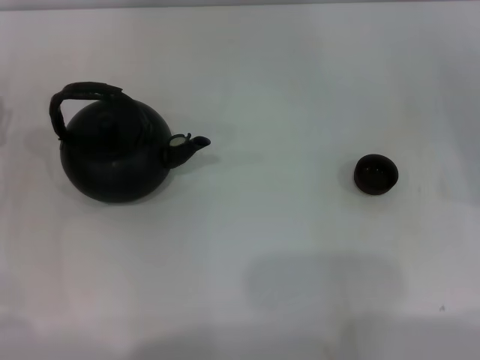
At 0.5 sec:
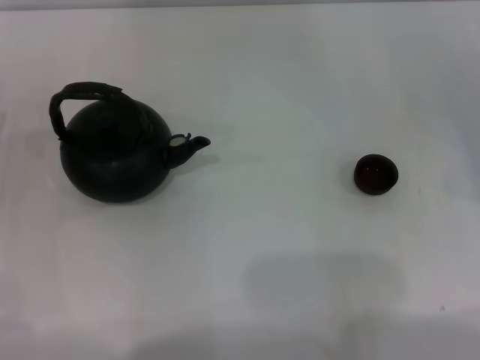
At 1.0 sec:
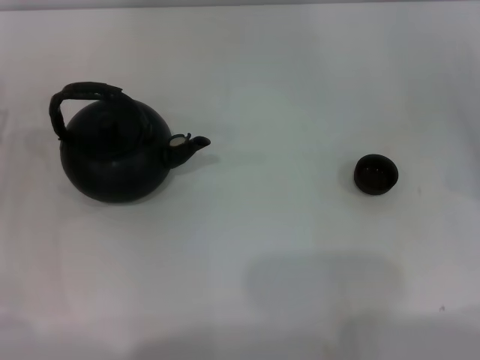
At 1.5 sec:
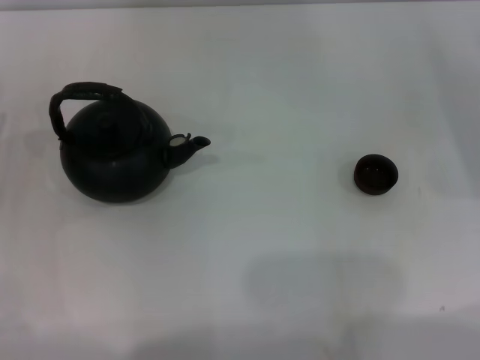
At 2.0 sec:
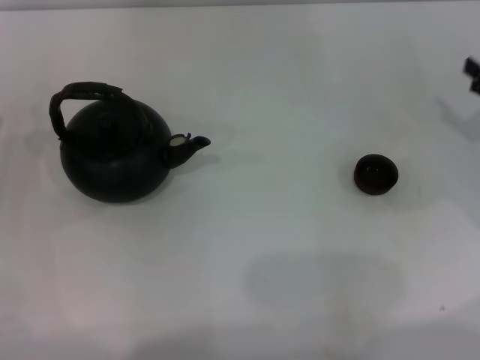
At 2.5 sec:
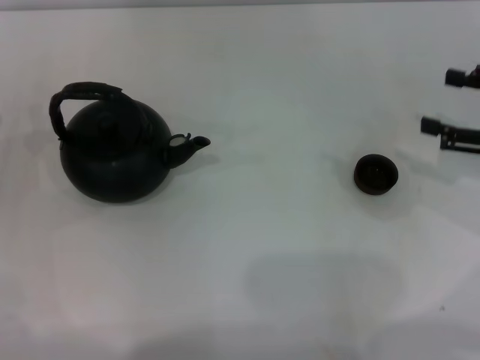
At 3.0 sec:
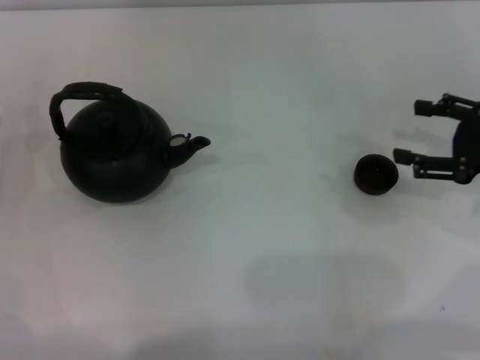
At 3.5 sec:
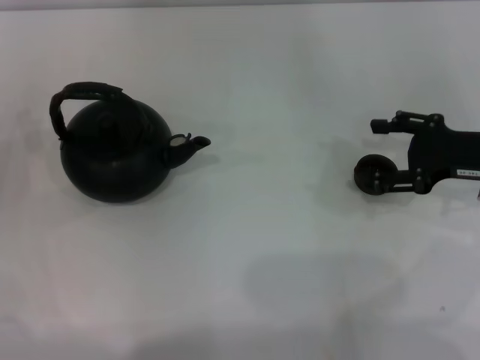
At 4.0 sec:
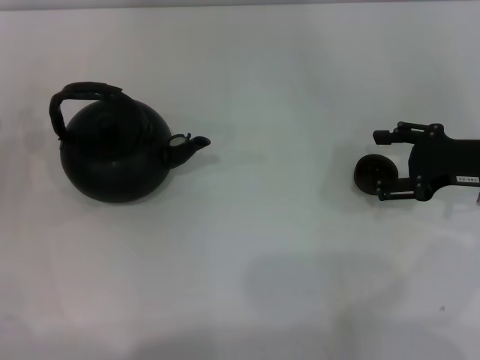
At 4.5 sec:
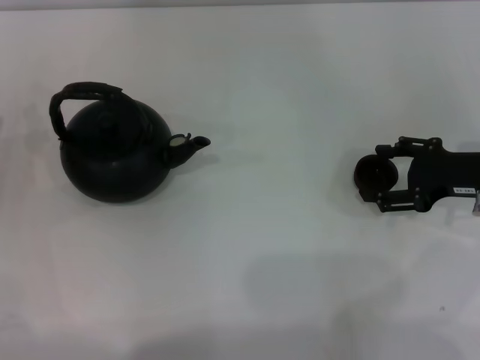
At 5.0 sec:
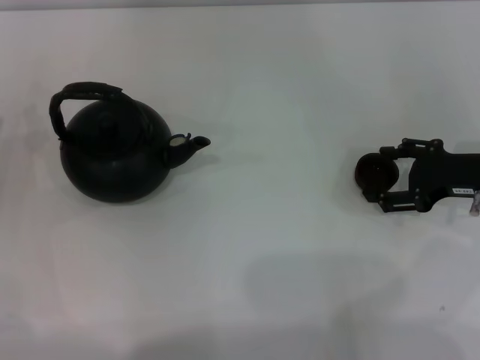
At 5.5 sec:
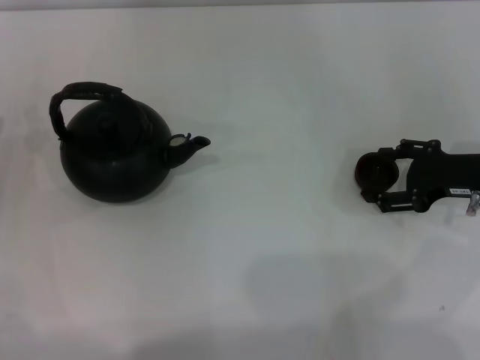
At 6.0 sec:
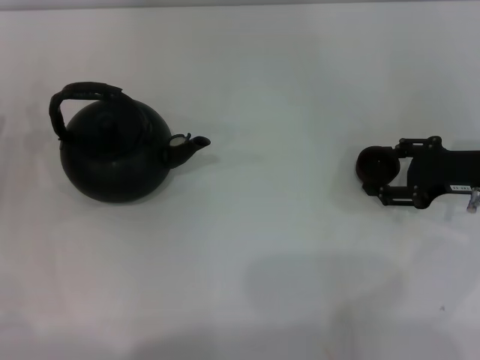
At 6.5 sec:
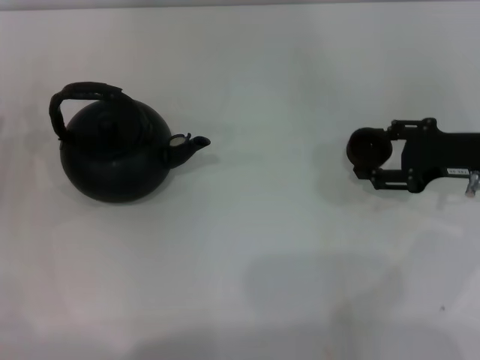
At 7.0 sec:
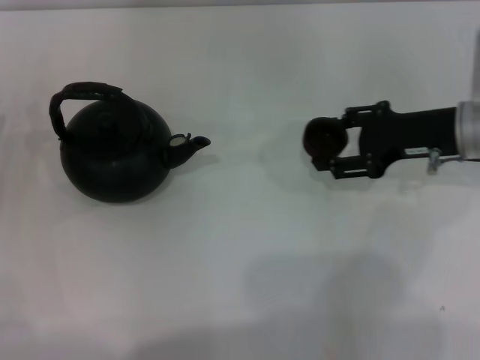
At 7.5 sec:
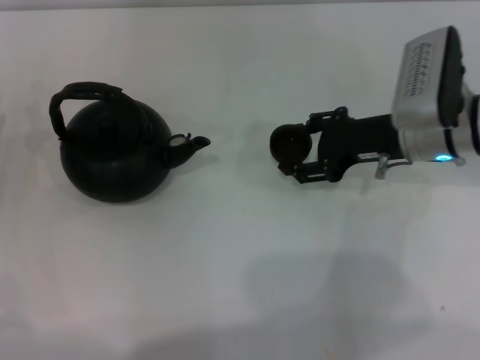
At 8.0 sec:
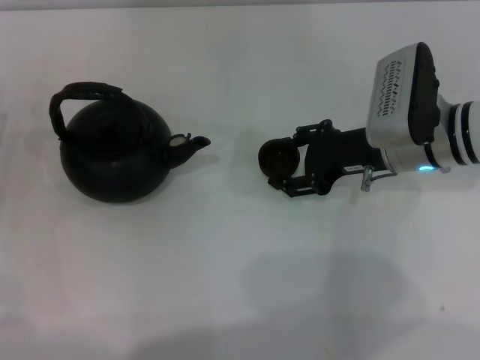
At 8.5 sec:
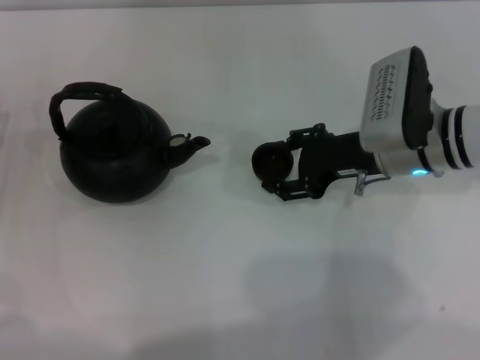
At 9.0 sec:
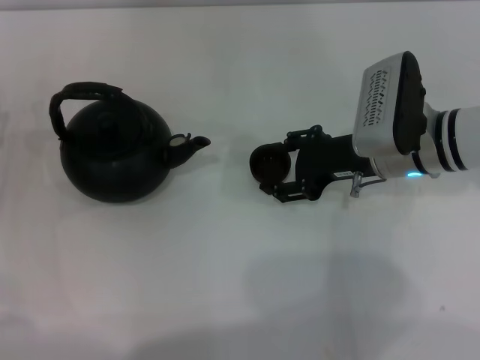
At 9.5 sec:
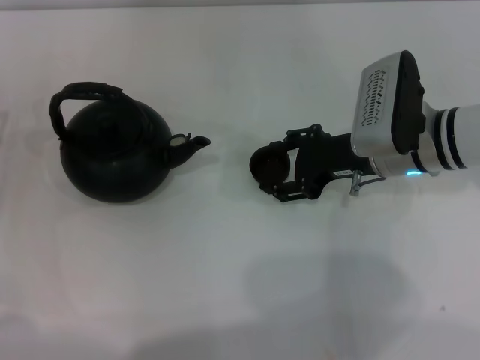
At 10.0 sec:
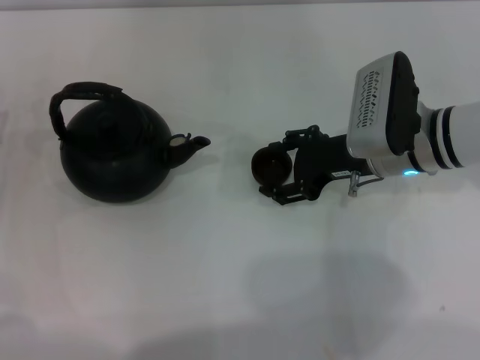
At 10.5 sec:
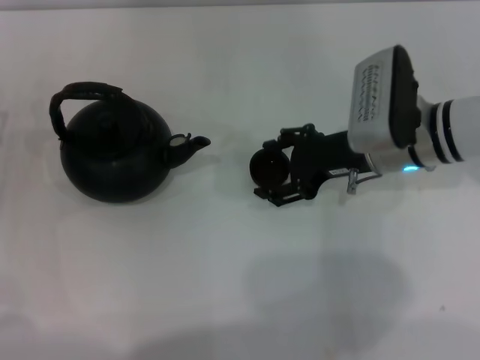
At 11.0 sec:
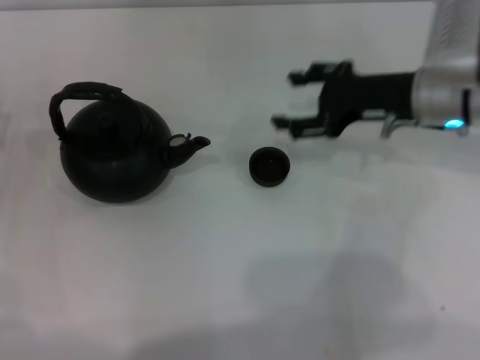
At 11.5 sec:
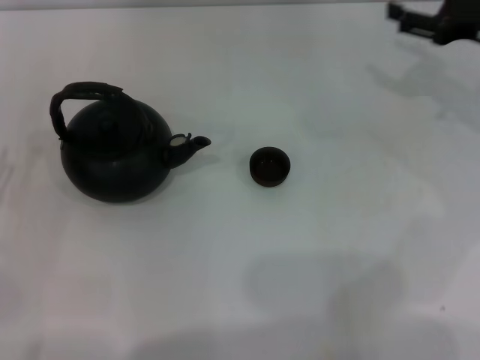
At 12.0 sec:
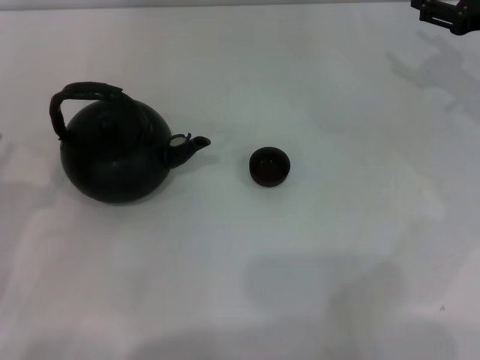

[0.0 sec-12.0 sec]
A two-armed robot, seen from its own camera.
Task of the whole recording: Grasp the handle of the teapot with one hand and pour tea into the teacup.
Step, 0.0 sec to 6.5 sec: Pick up the teacup with the right gripper.
Step, 7.0 sec to 11.0 sec: Place the teacup in the center of view with the right gripper.
2.0 sec to 4.0 sec: The right gripper is displaced to the left by about 5 cm.
4.0 sec to 6.0 sec: There are only small adjustments of the grippers.
6.0 sec to 8.0 sec: The right gripper goes about 10 cm to the left.
8.0 sec to 10.0 sec: The grippers move only a little.
10.0 sec to 12.0 sec: The right gripper goes approximately 15 cm to the right. Meanwhile the left gripper heads backward, covering approximately 10 cm.

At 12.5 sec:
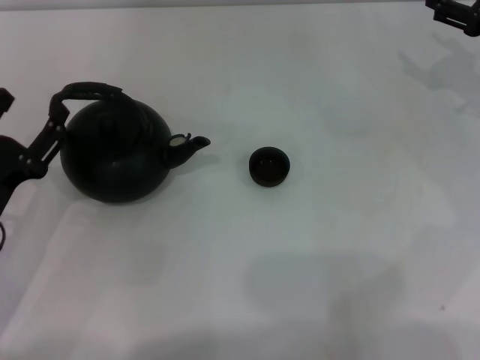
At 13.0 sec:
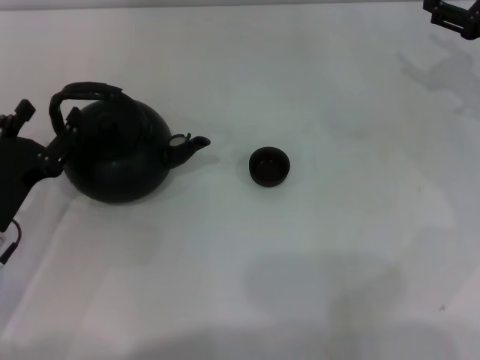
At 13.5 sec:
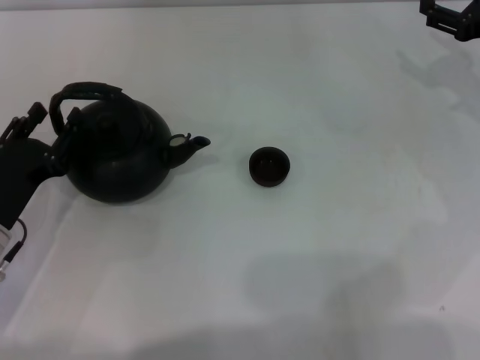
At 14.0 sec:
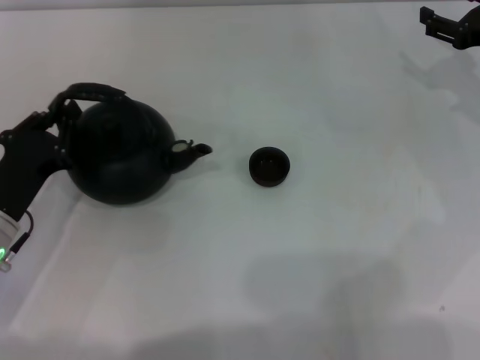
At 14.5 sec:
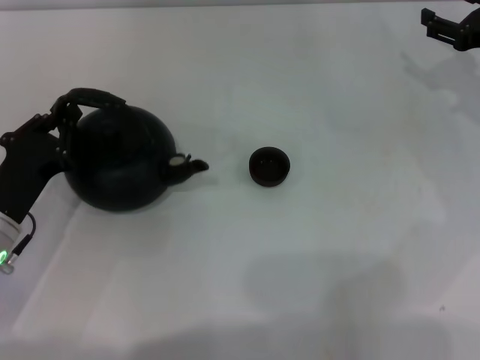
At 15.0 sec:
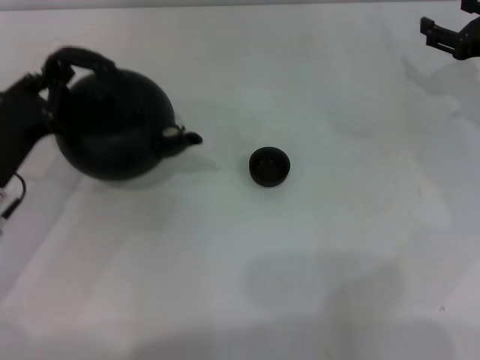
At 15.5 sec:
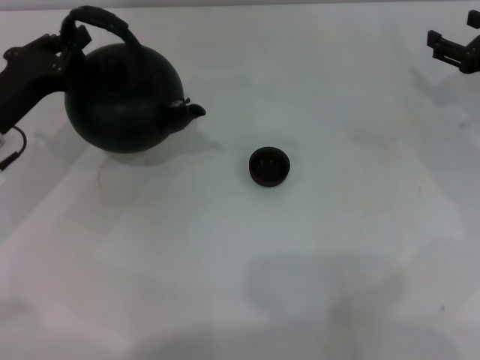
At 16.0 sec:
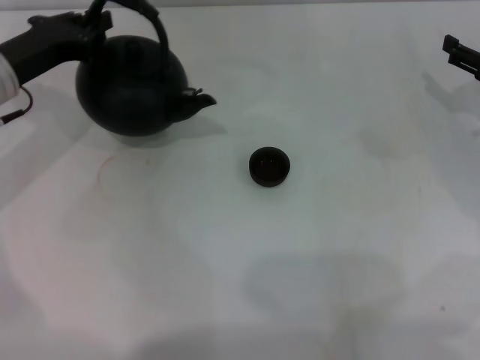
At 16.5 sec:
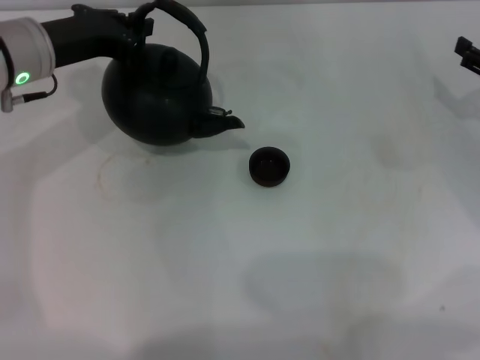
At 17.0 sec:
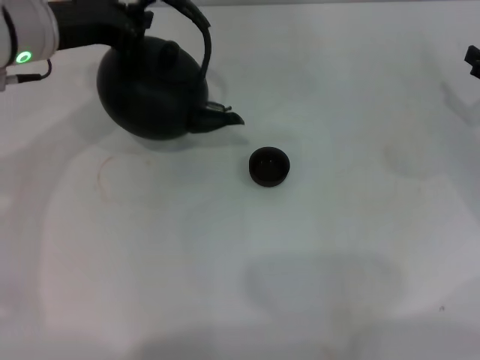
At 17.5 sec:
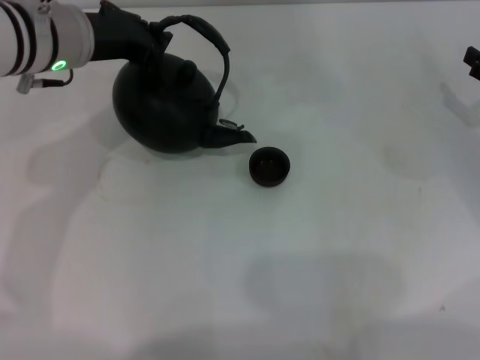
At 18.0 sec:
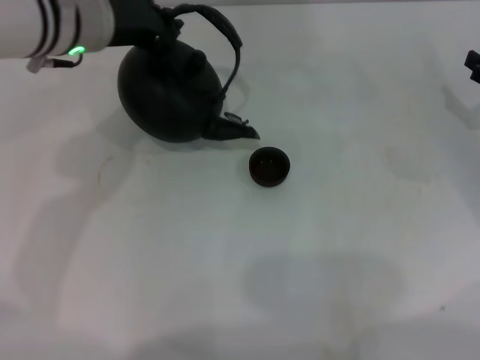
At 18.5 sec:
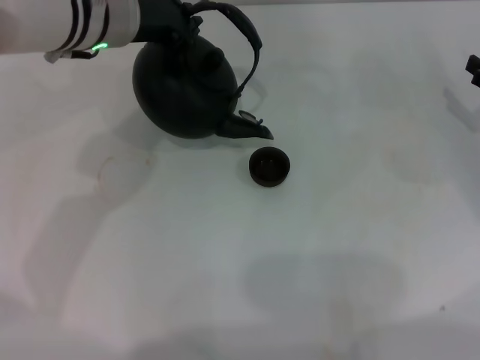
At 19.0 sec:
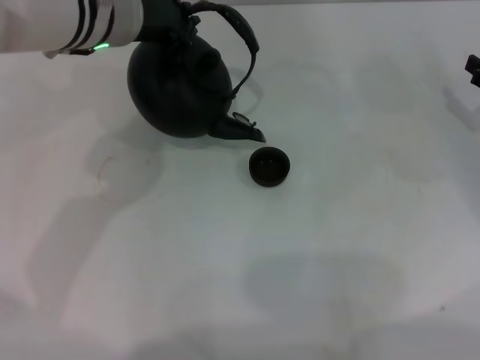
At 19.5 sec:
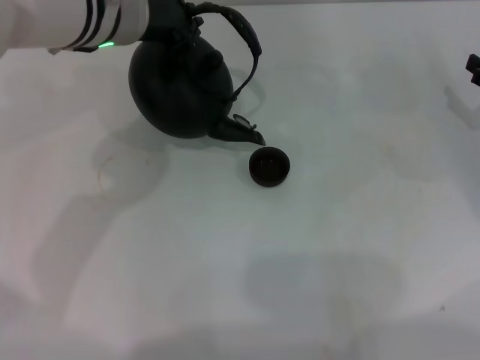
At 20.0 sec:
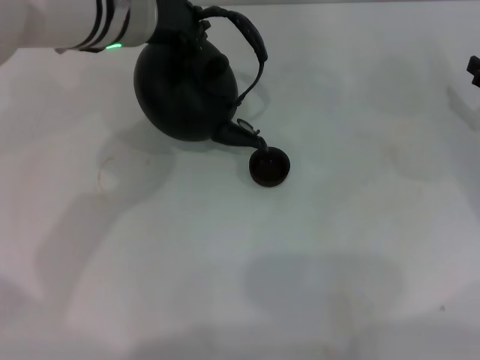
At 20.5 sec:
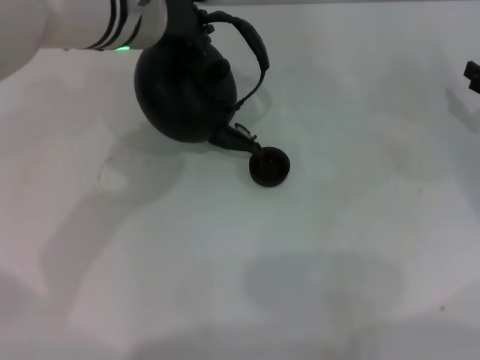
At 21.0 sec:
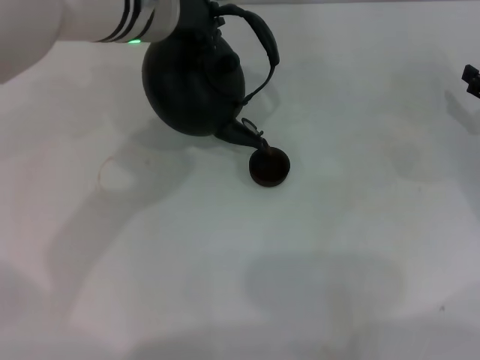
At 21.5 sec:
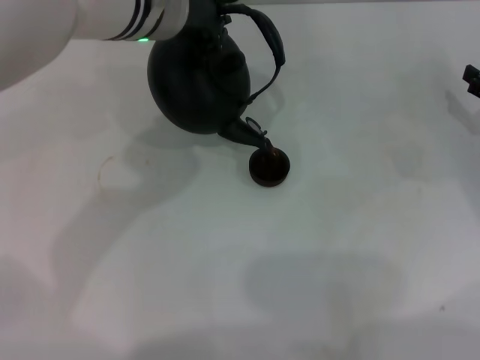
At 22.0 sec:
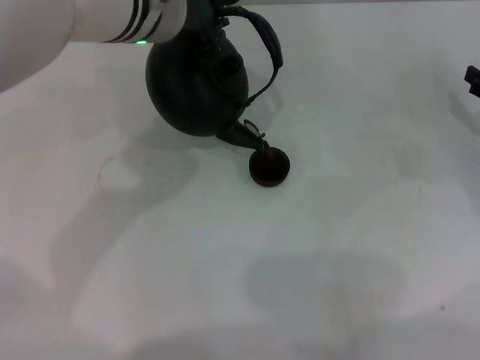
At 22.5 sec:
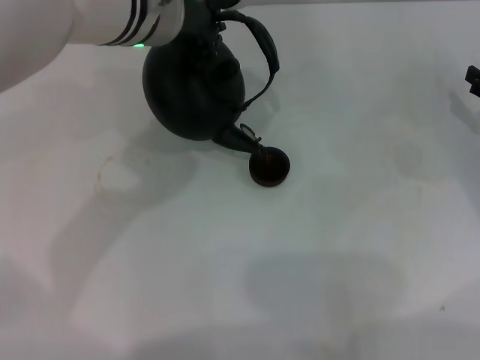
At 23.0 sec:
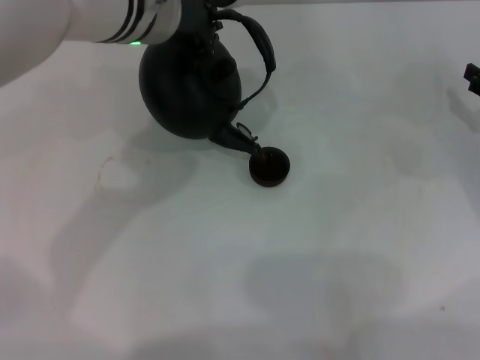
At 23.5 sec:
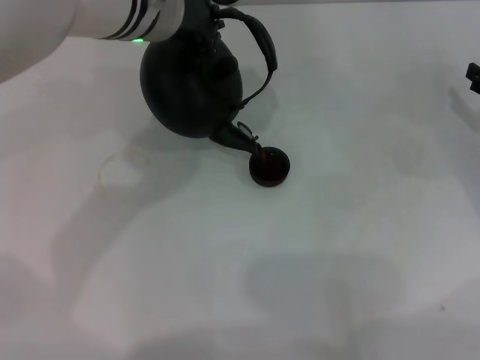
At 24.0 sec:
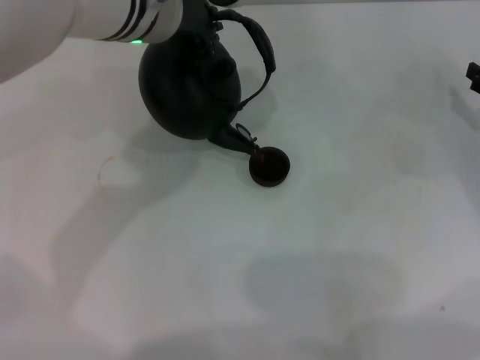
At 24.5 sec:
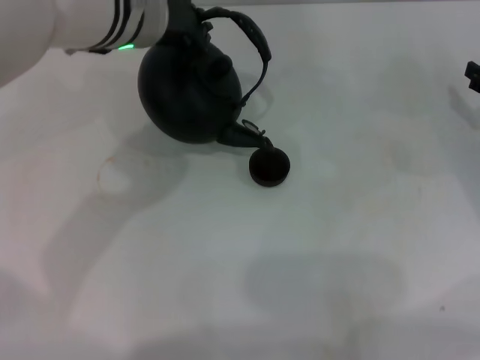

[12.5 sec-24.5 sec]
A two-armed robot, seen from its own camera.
Task of the whole recording: Grasp the handle of the teapot with one hand and pour tea into the teacup.
Step, 12.5 sec to 16.0 sec: Pick up the teapot with the left gripper.
12.5 sec to 14.5 sec: The left gripper closes up.
14.5 sec to 16.5 sec: The left gripper is displaced forward and upward by roughly 20 cm. Meanwhile the right gripper is displaced backward by approximately 5 cm.
16.5 sec to 18.5 sec: The left gripper goes about 10 cm to the right and upward.
18.5 sec to 24.5 sec: There are only small adjustments of the grippers.

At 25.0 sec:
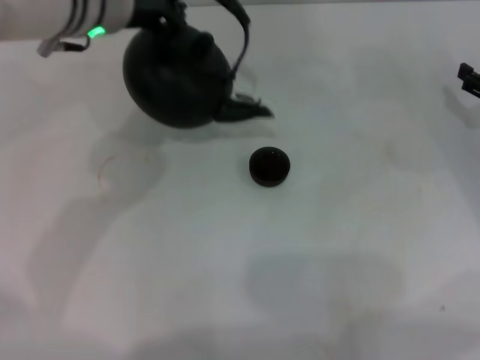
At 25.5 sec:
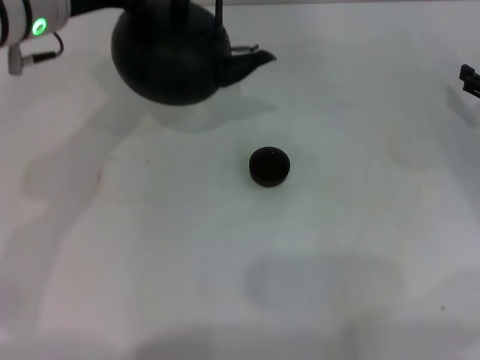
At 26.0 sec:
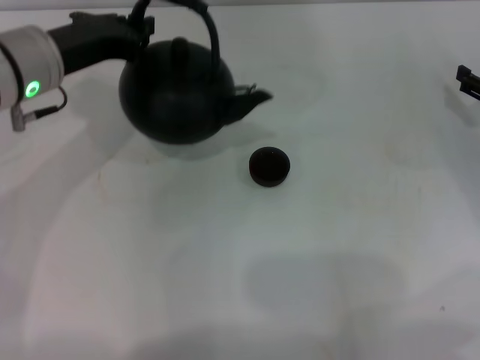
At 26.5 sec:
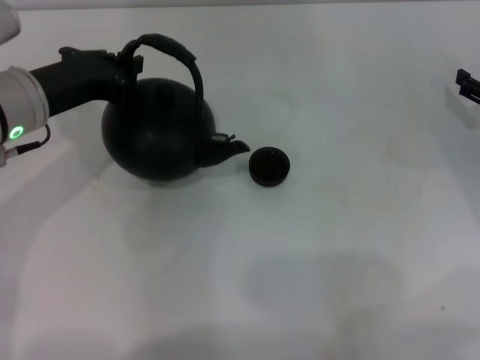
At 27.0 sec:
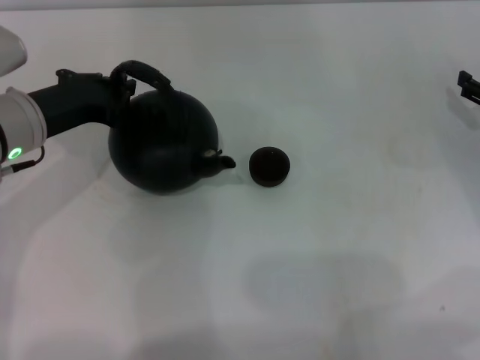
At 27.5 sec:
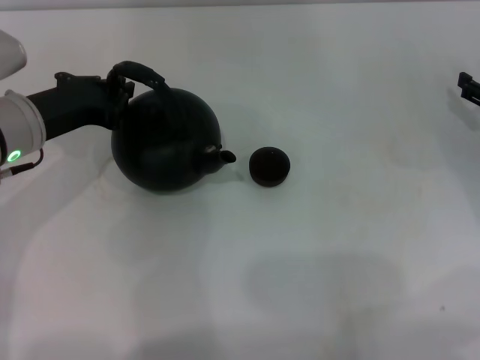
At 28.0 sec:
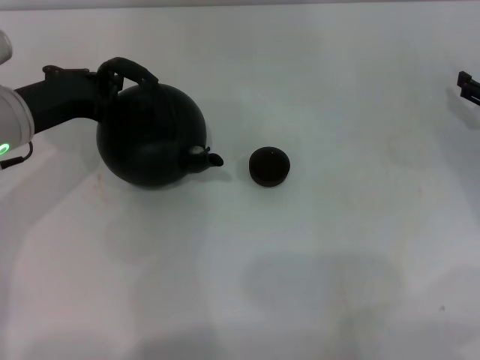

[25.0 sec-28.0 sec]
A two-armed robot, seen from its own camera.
Task of the whole recording: Grasp the handle of the teapot with one hand and pour tea into the teacup.
25.0 sec to 26.5 sec: The left gripper shifts roughly 10 cm to the left and downward.
26.5 sec to 28.0 sec: There are only small adjustments of the grippers.
